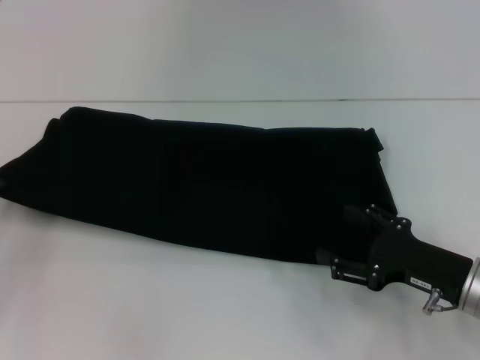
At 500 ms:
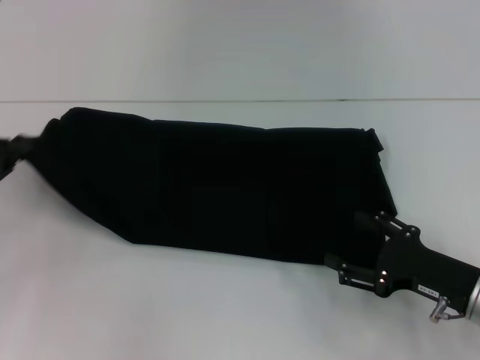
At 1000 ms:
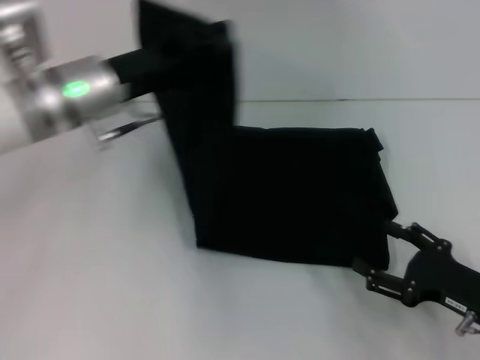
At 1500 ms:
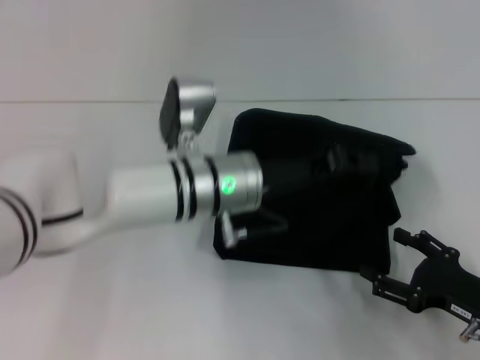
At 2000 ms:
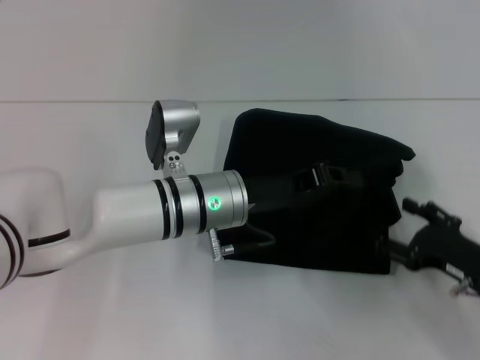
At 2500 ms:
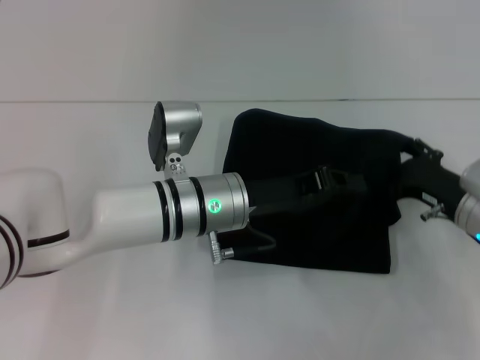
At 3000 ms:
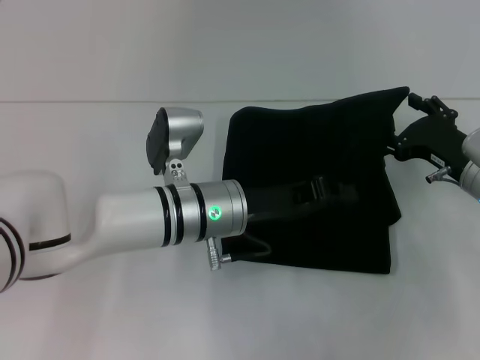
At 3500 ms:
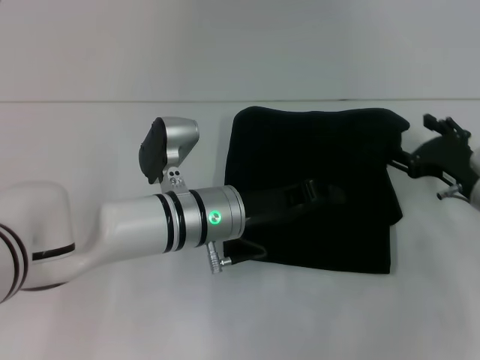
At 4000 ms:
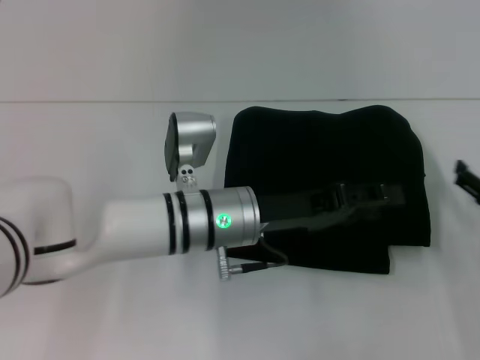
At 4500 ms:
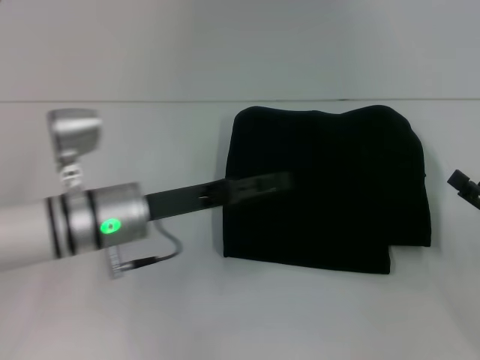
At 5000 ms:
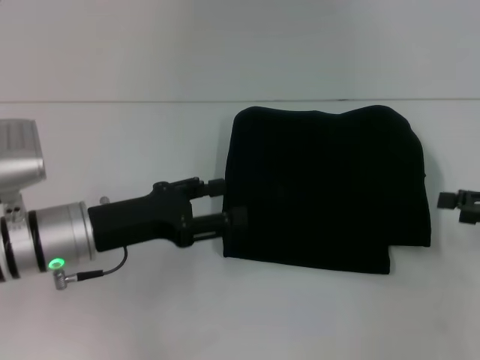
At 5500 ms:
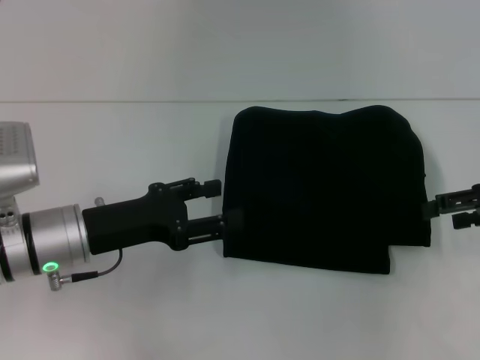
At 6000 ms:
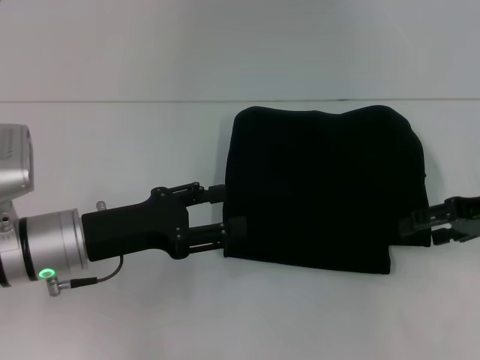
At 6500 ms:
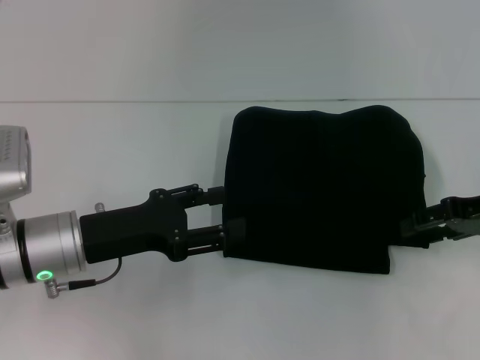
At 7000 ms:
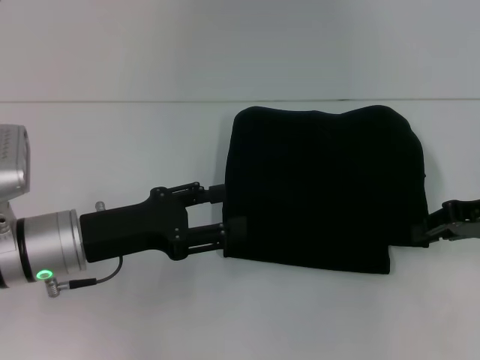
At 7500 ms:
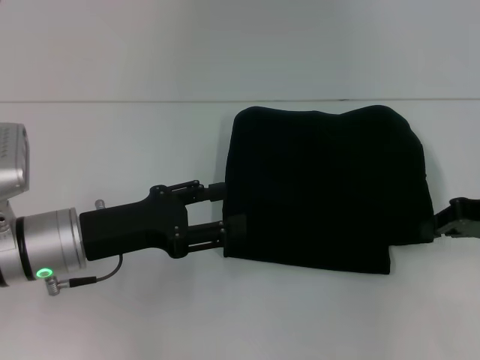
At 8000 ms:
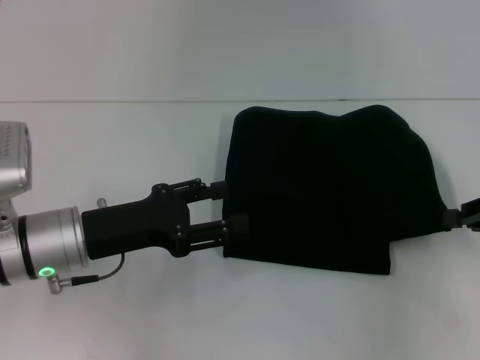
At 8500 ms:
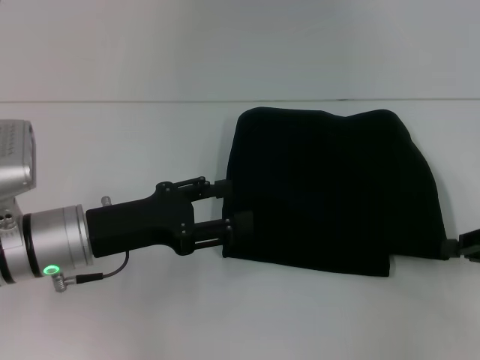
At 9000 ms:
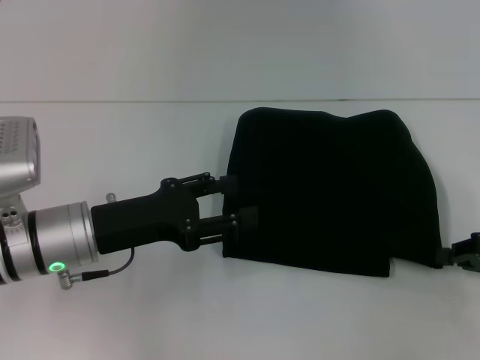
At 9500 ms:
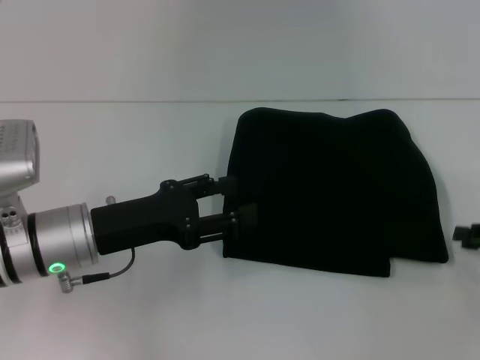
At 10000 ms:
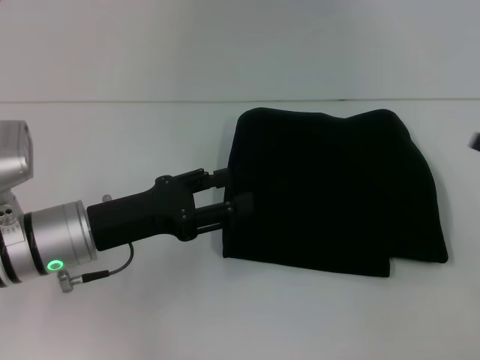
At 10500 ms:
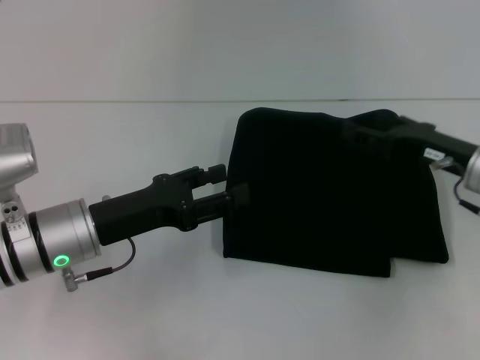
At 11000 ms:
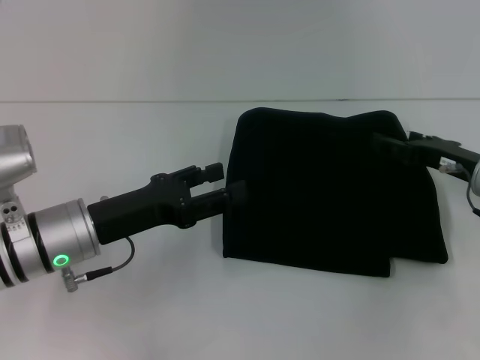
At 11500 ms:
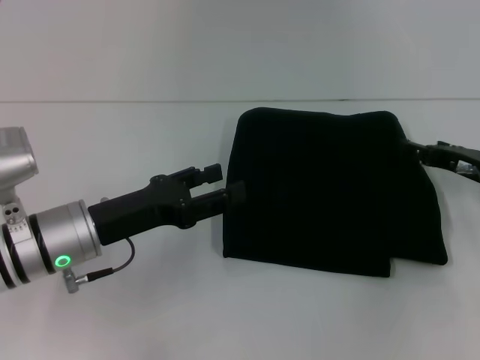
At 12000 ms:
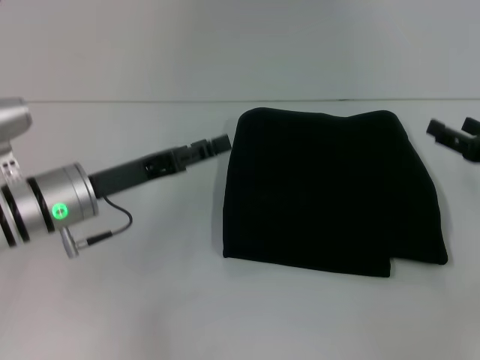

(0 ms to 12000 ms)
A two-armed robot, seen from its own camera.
Step, 0 ms - 3500 ms: Fold the clothes with your left hand.
0 ms - 2000 ms: The left gripper shifts approximately 30 cm to the right.
4000 ms - 6000 ms: The right gripper heads upward and forward, covering approximately 15 cm. Meanwhile the left gripper travels to the left by approximately 15 cm, and opens.
6000 ms - 8000 ms: The right gripper moves some 5 cm, and closes its fingers.
8000 ms - 10000 ms: The right gripper opens up.

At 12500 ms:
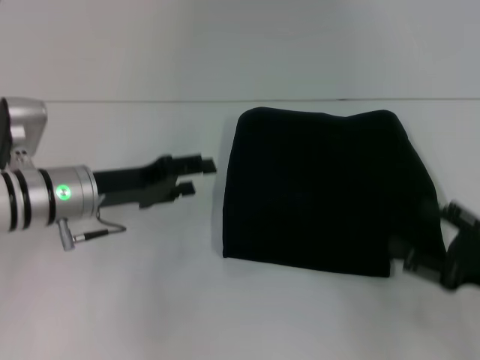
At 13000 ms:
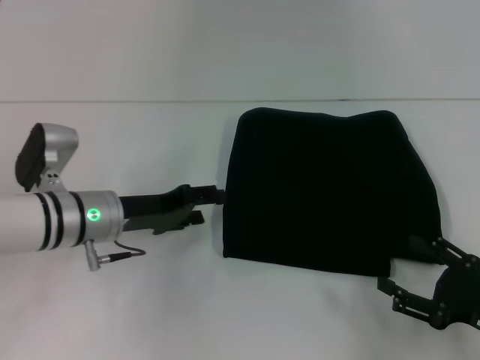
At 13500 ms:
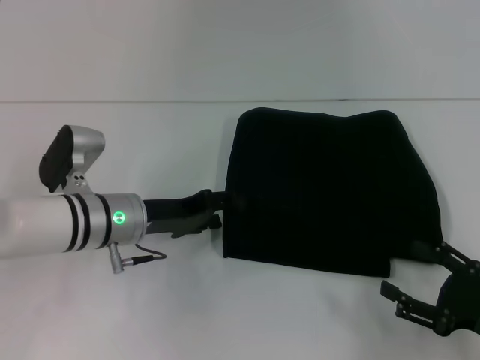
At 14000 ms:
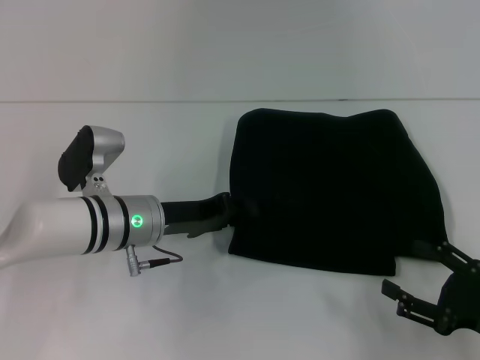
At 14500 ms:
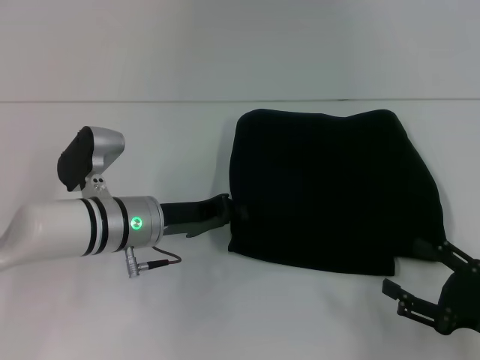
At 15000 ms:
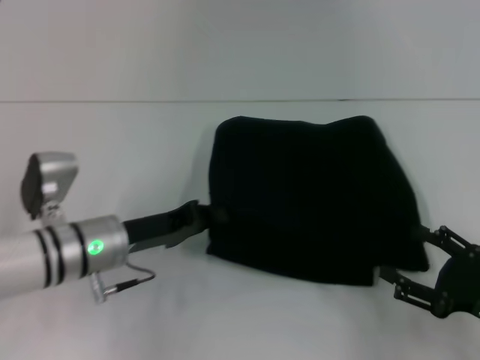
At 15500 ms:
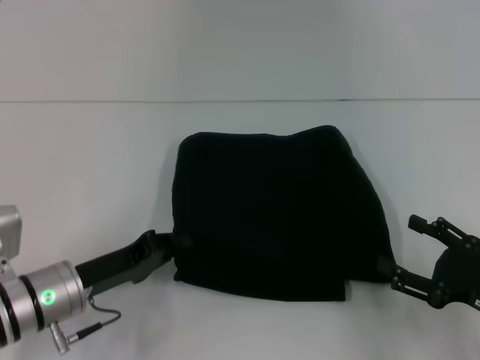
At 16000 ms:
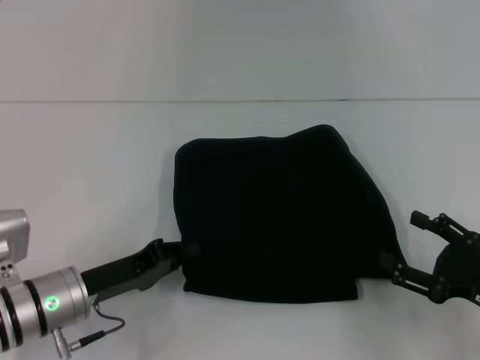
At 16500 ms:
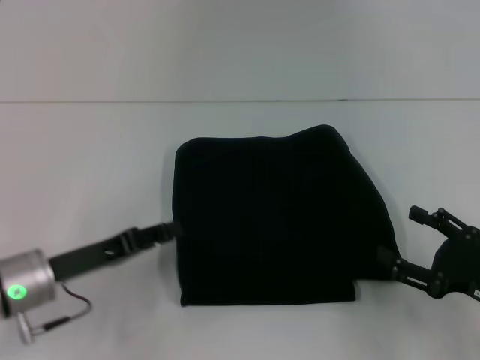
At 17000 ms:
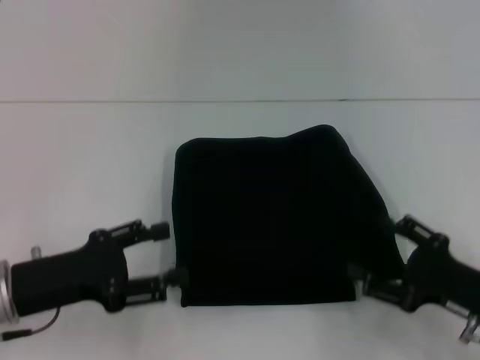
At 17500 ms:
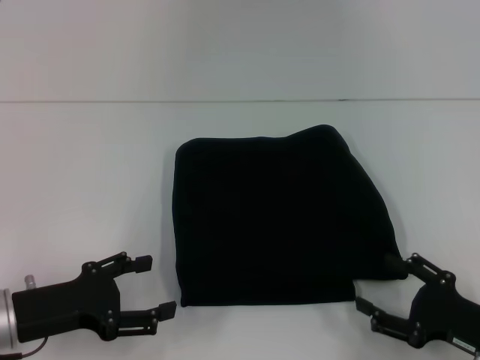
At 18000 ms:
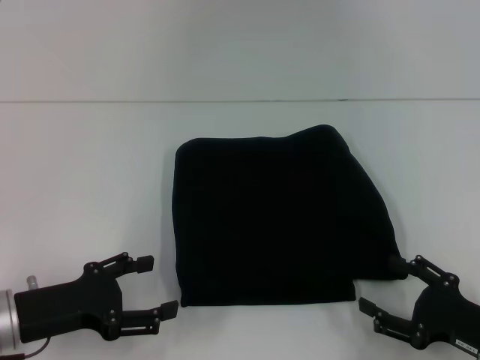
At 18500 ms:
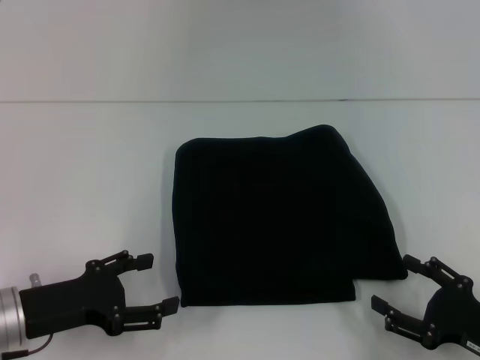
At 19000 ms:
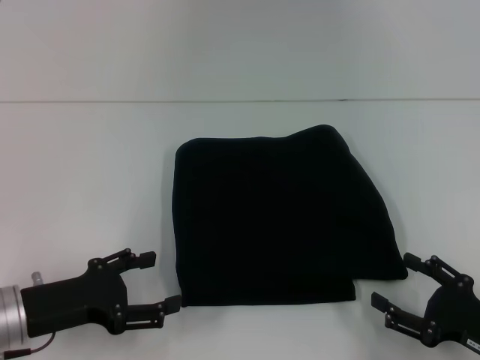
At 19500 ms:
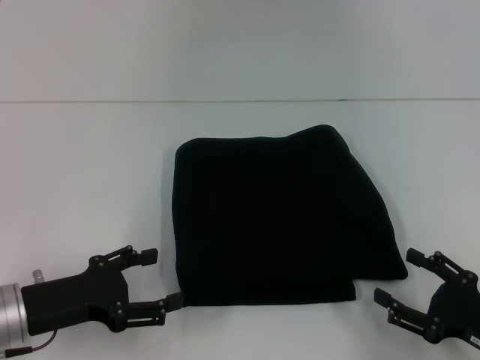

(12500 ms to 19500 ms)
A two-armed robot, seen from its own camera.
12500 ms - 14500 ms: The left gripper goes some 5 cm to the right, and closes its fingers.
14500 ms - 16000 ms: The left gripper moves backward and to the left, about 10 cm.
16000 ms - 17500 ms: The left gripper goes roughly 5 cm to the left, and opens.
17500 ms - 19500 ms: There are only small adjustments of the grippers.

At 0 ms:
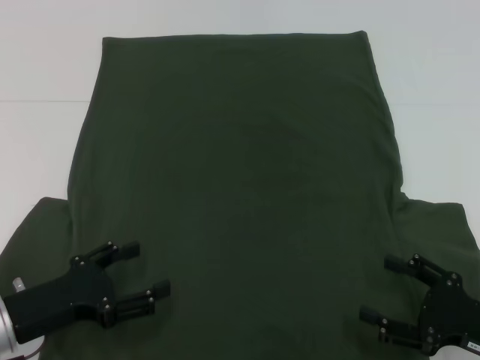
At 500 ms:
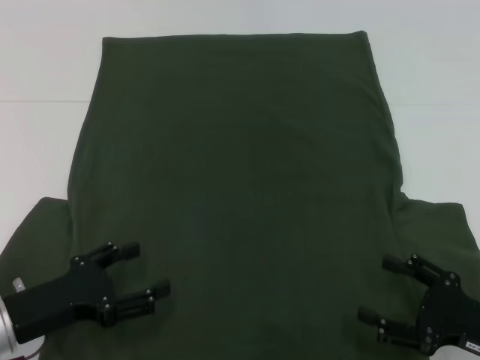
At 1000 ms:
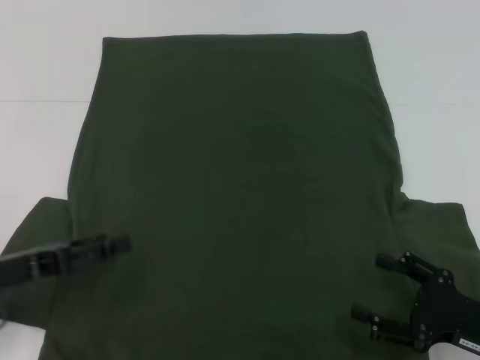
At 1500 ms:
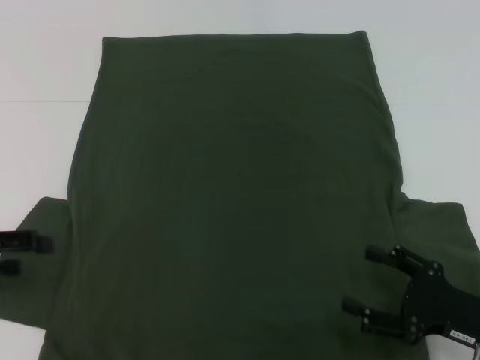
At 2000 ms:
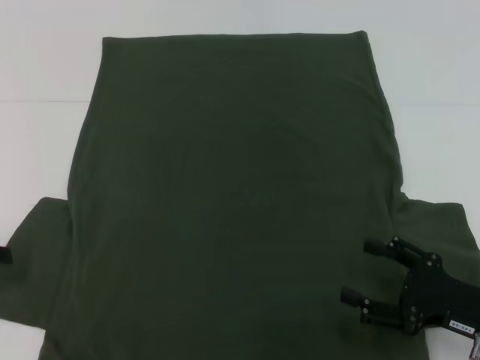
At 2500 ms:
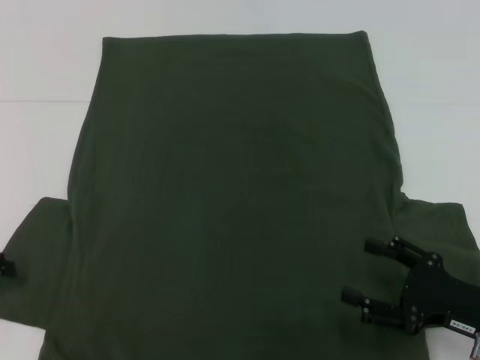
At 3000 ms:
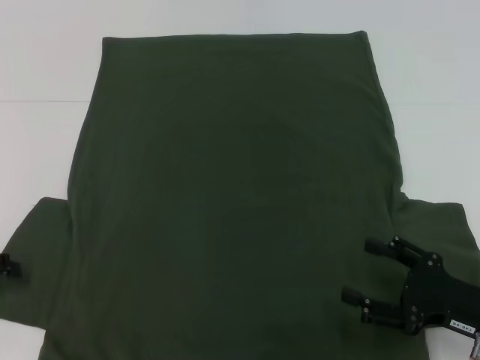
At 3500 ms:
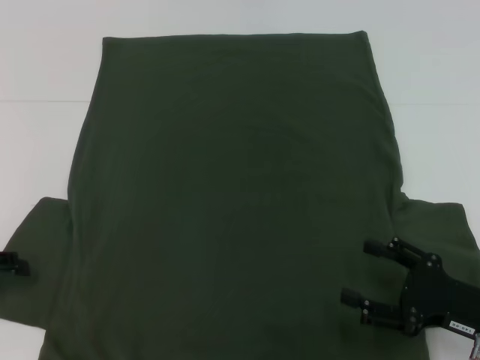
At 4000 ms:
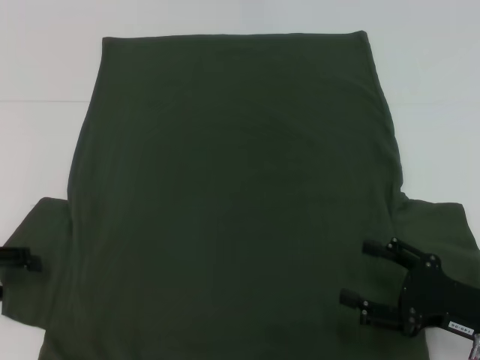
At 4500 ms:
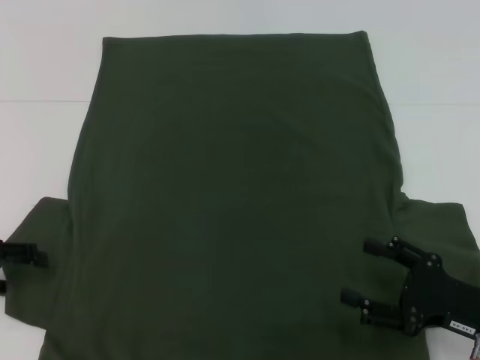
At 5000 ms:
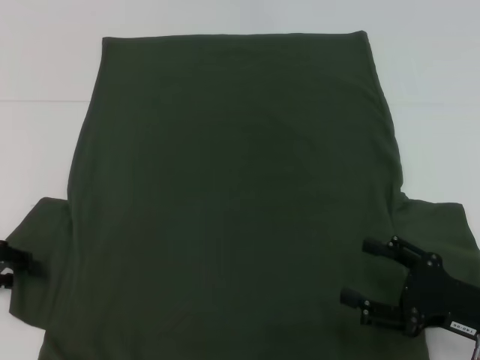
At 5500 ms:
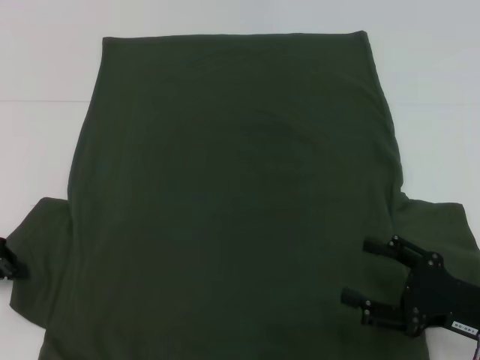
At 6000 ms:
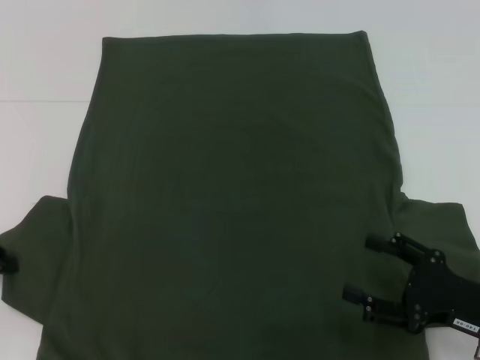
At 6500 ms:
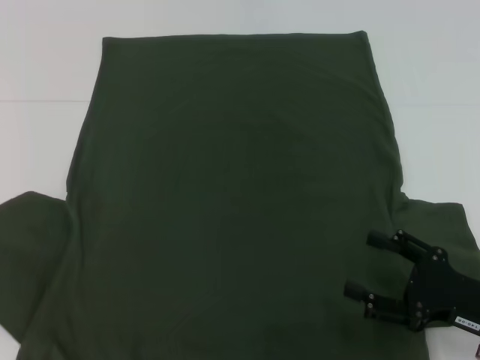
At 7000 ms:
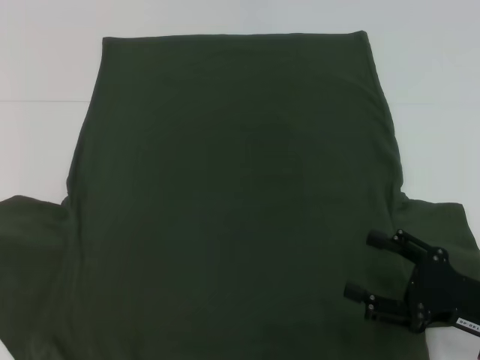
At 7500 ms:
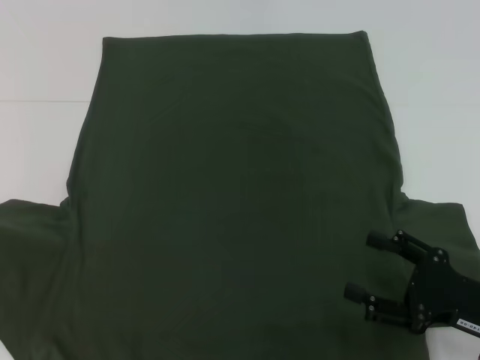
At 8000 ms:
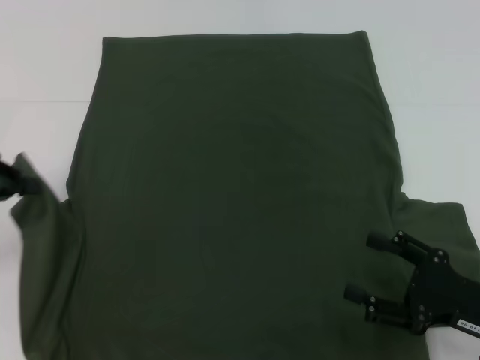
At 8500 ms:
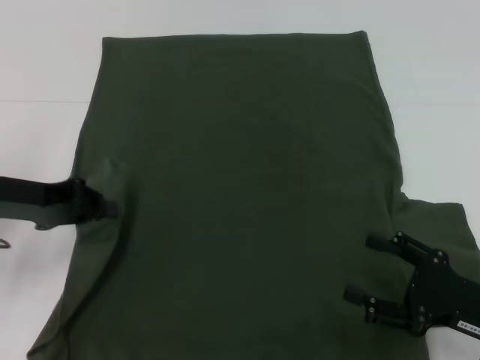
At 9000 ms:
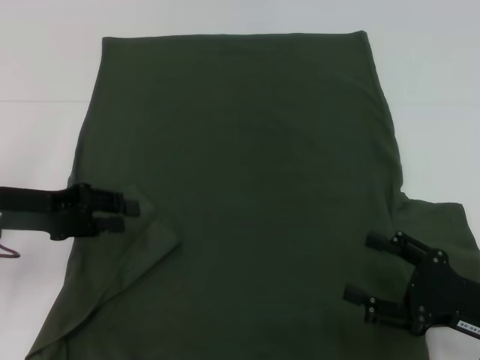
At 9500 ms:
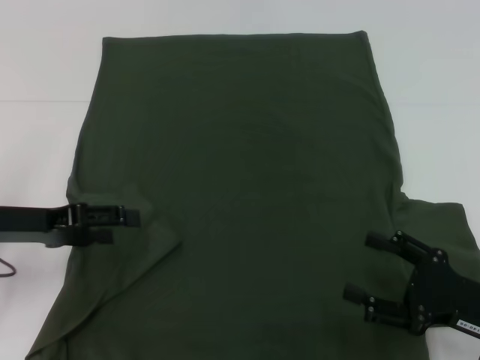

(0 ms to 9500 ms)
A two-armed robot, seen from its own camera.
0 ms - 2000 ms: The left gripper is displaced to the left, upward and forward by about 15 cm.
4000 ms - 5500 ms: The left gripper closes.
5500 ms - 7500 ms: The left gripper changes place by some 5 cm.
7500 ms - 9500 ms: The left gripper shifts roughly 10 cm to the right, and opens its fingers.
